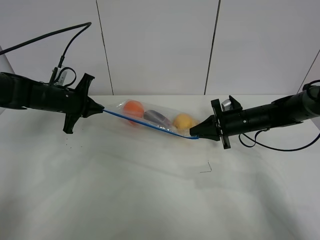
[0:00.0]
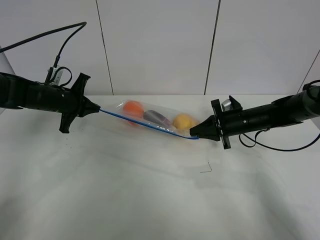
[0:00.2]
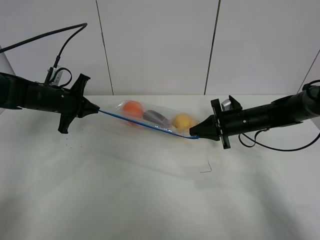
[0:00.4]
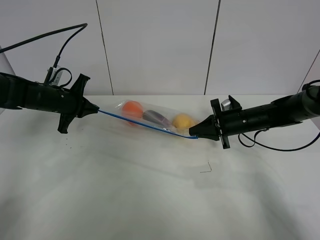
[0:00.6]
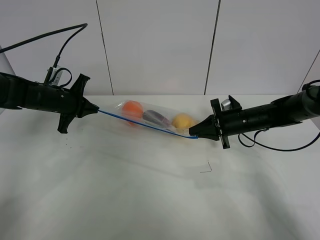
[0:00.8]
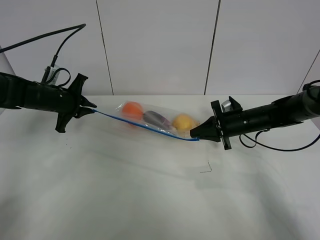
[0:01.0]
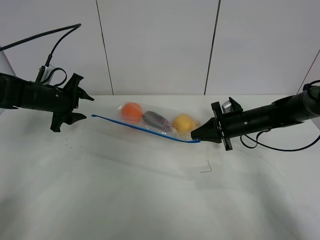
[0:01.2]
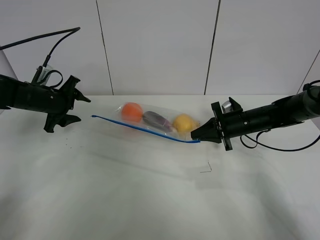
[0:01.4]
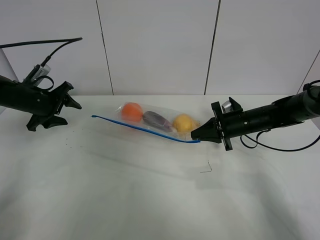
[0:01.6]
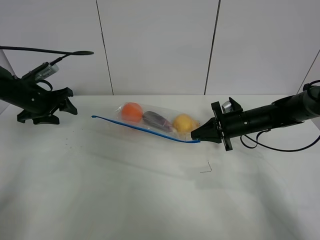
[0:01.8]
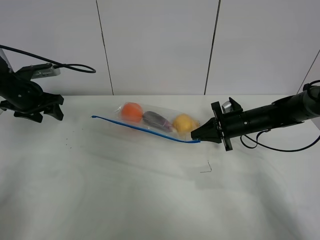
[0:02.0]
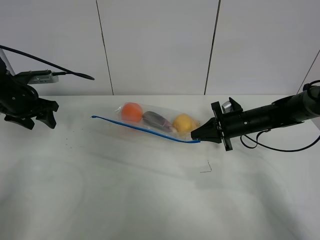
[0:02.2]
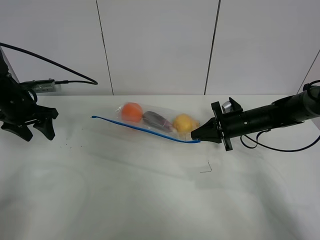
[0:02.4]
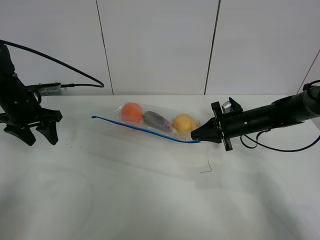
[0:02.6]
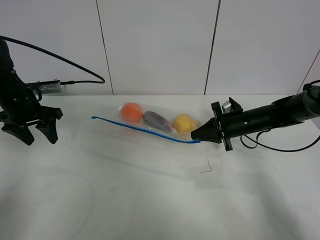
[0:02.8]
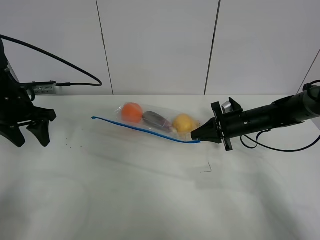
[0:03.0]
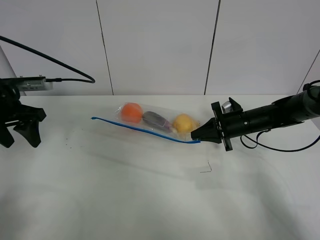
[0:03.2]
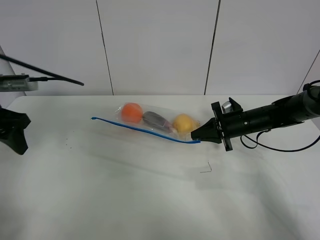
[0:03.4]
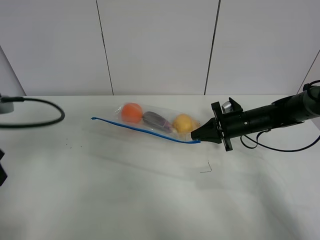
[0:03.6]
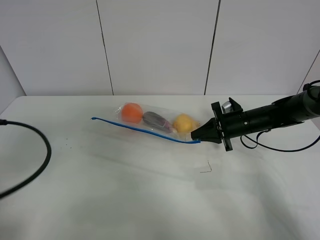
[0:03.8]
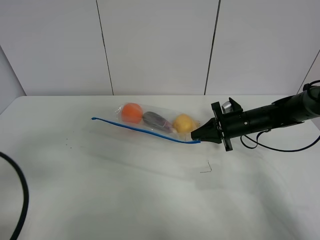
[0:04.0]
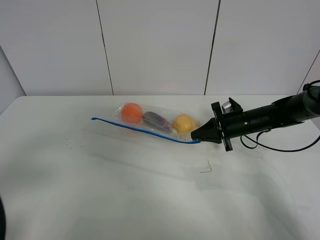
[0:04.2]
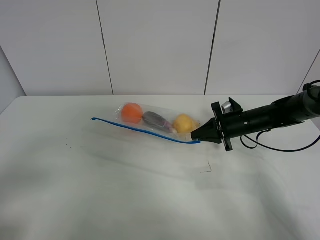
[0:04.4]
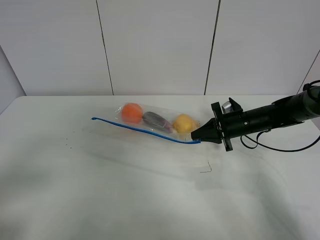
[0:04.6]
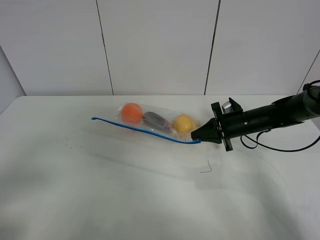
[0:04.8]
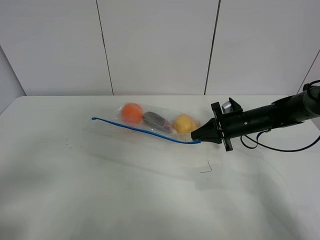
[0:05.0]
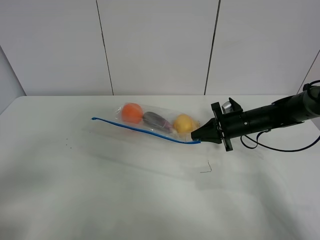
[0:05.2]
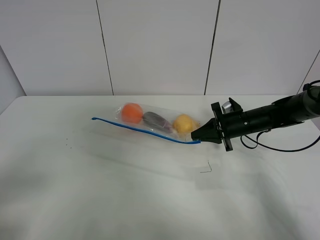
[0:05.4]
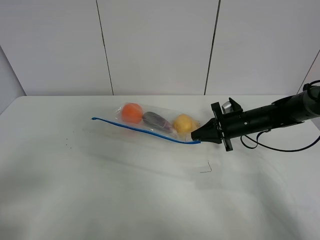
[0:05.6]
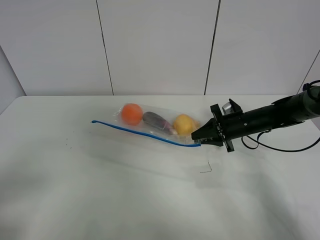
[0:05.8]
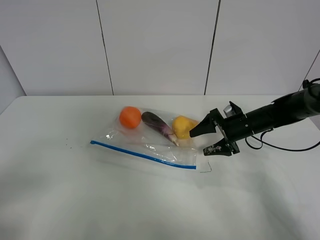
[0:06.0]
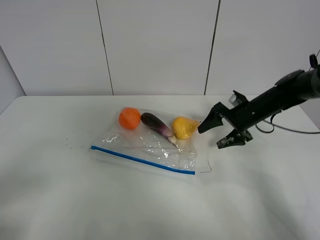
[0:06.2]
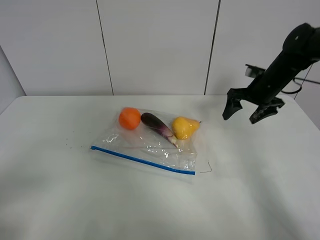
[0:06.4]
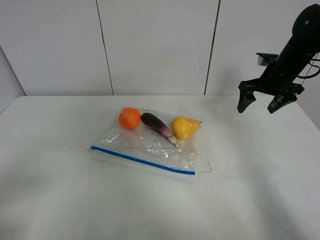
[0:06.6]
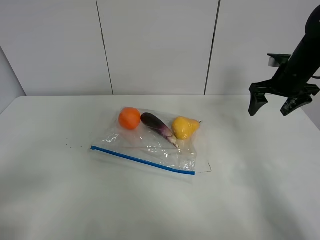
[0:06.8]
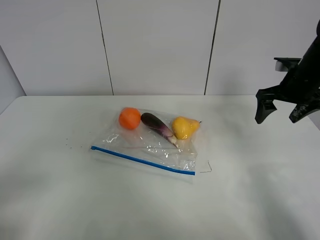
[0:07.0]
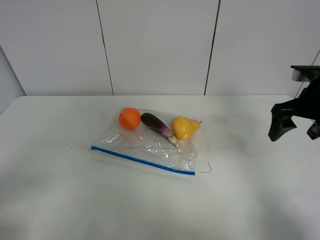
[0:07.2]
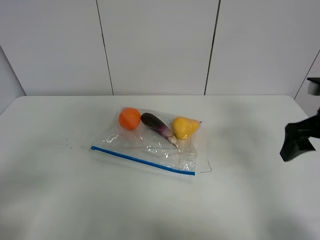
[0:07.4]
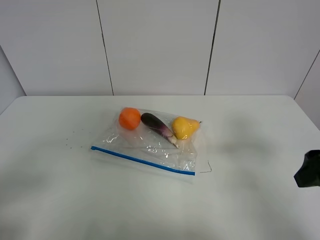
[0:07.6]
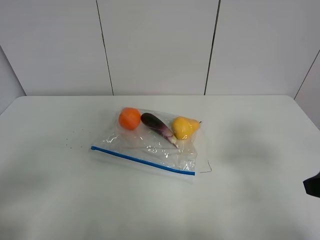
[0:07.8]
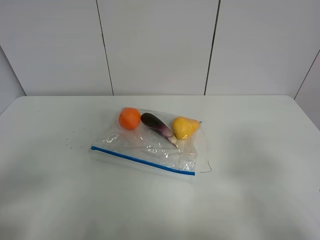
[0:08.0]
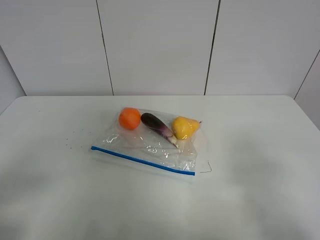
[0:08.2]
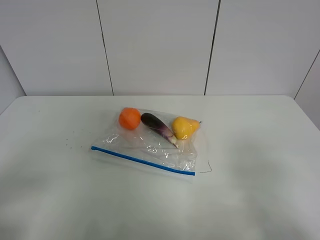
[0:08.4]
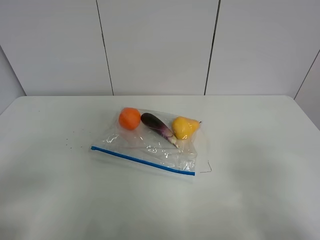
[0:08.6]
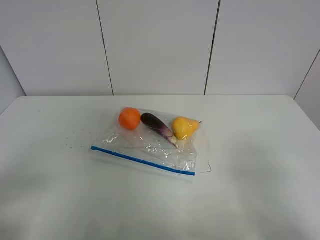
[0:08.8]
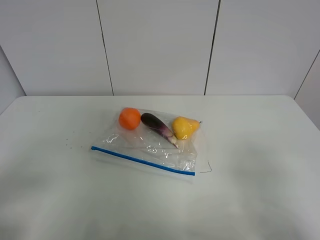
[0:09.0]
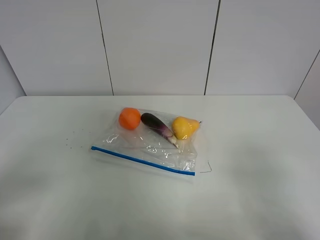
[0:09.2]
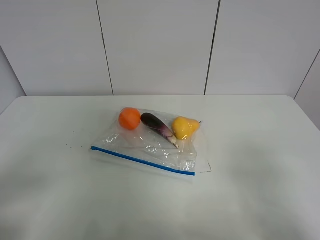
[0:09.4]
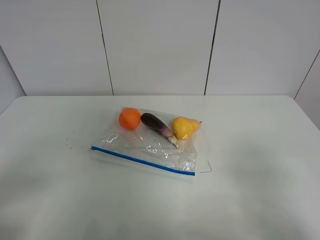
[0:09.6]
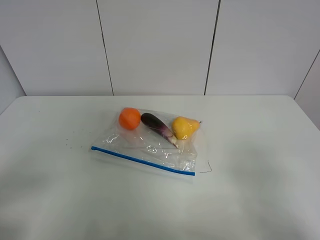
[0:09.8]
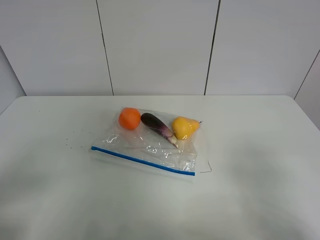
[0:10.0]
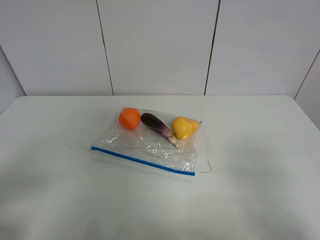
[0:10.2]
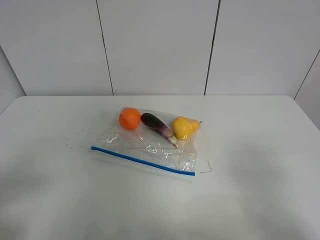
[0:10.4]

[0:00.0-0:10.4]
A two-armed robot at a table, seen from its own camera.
0:00.0 to 0:01.4: The left gripper opens up.
0:01.4 to 0:03.0: The left gripper goes roughly 5 cm upward.
0:03.0 to 0:04.4: The left gripper goes approximately 30 cm backward.
0:04.4 to 0:06.0: The right gripper opens up.
0:06.0 to 0:07.4: The right gripper goes roughly 25 cm upward, backward and to the right.
0:07.4 to 0:09.0: The right gripper is displaced backward by roughly 20 cm.
0:09.0 to 0:10.4: Neither gripper changes place.

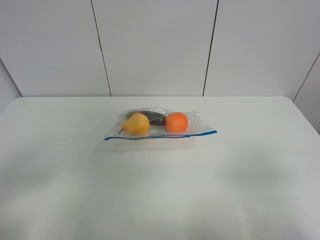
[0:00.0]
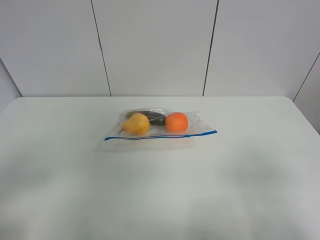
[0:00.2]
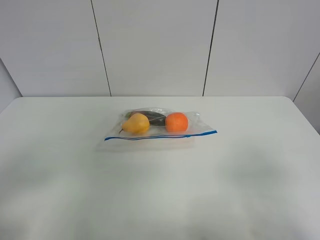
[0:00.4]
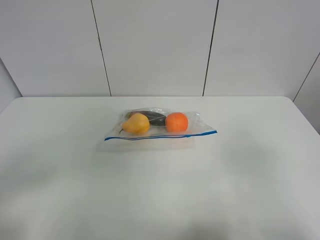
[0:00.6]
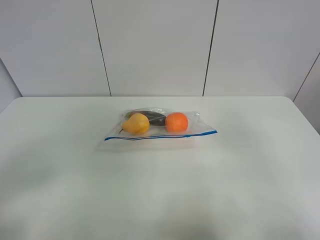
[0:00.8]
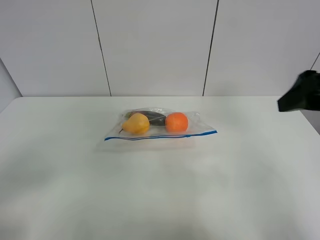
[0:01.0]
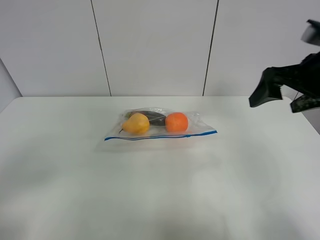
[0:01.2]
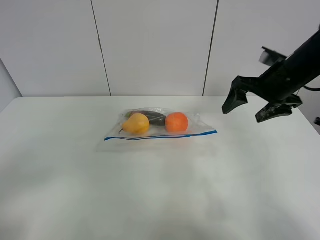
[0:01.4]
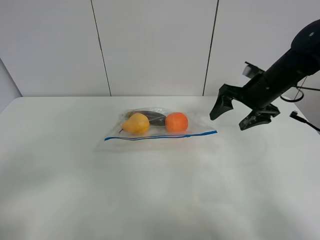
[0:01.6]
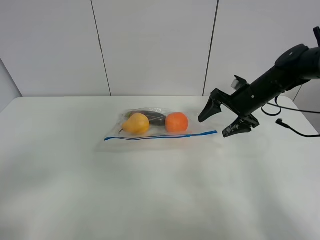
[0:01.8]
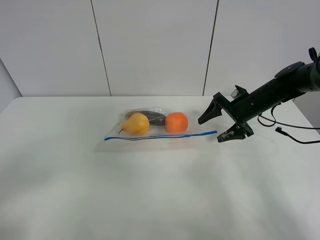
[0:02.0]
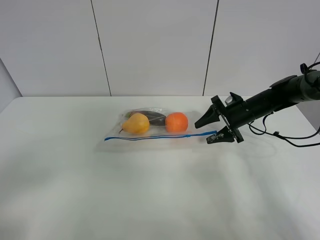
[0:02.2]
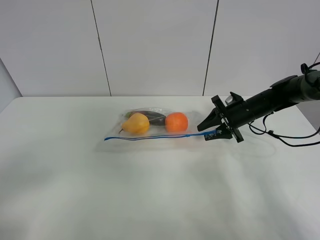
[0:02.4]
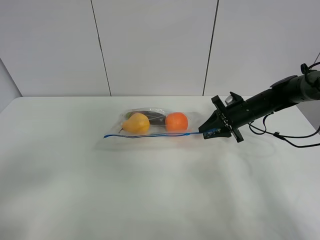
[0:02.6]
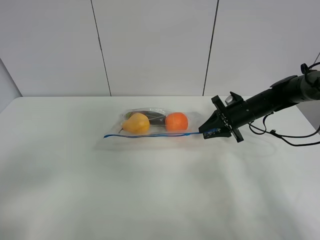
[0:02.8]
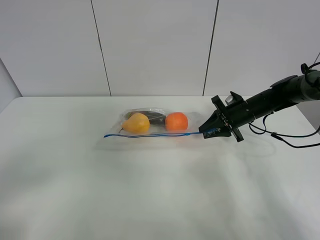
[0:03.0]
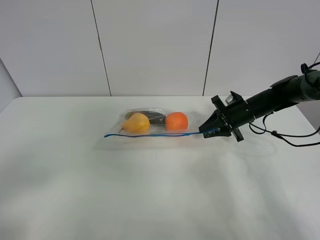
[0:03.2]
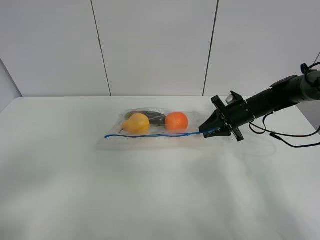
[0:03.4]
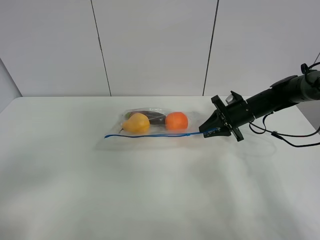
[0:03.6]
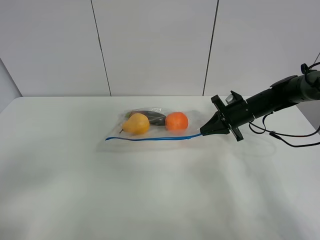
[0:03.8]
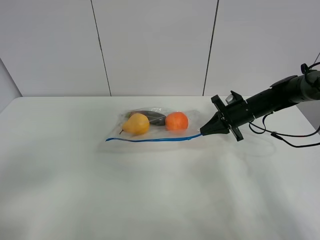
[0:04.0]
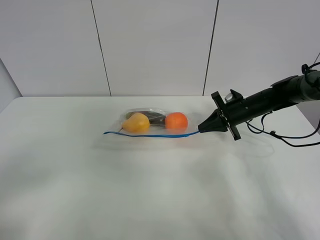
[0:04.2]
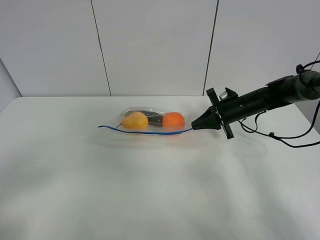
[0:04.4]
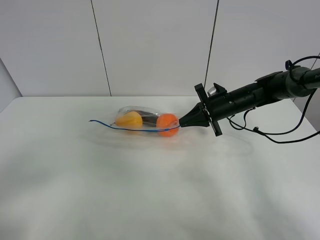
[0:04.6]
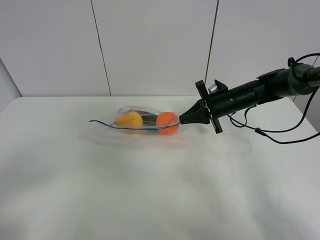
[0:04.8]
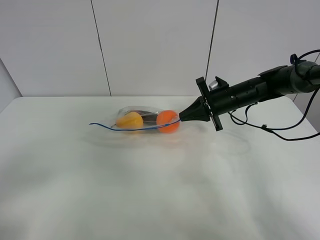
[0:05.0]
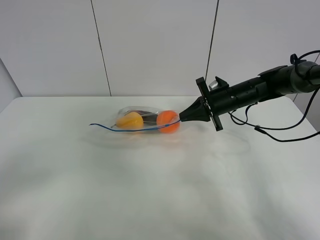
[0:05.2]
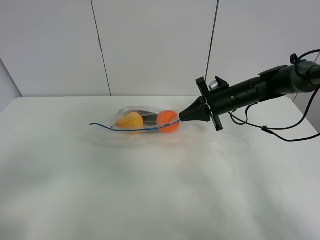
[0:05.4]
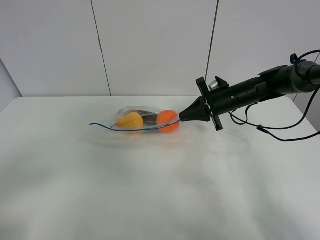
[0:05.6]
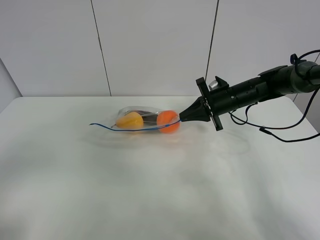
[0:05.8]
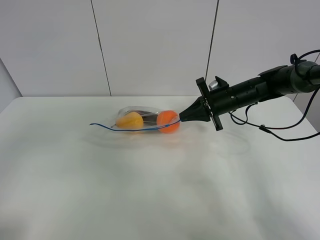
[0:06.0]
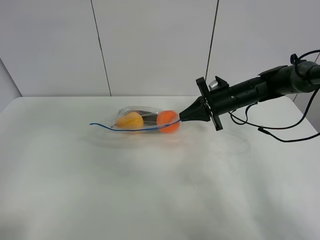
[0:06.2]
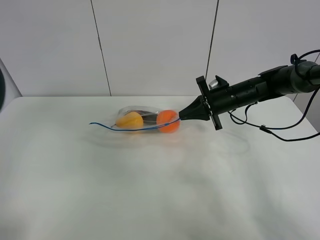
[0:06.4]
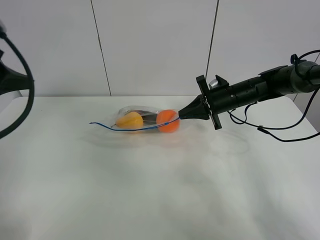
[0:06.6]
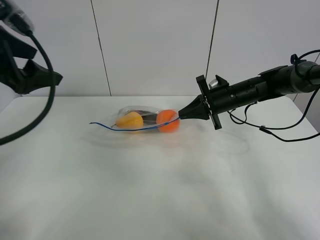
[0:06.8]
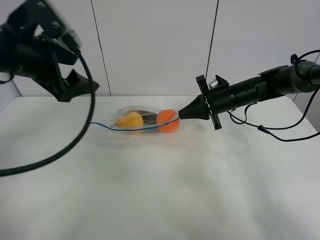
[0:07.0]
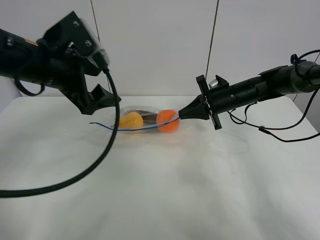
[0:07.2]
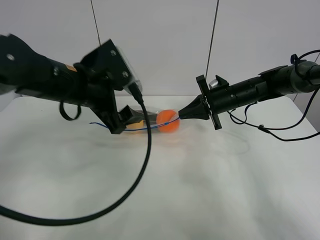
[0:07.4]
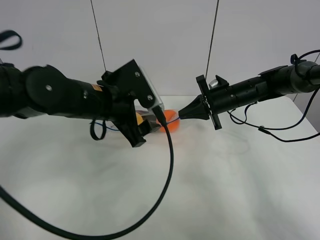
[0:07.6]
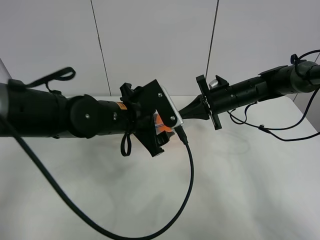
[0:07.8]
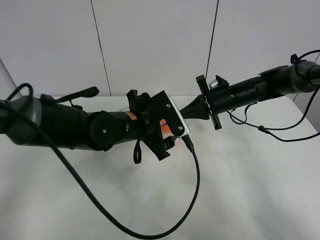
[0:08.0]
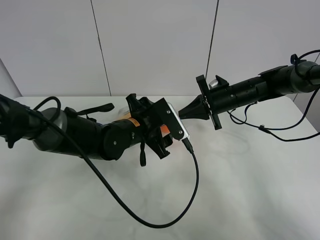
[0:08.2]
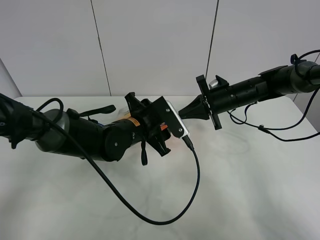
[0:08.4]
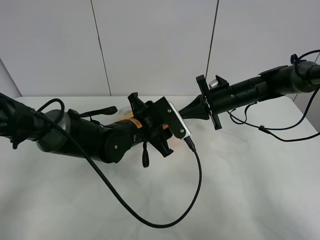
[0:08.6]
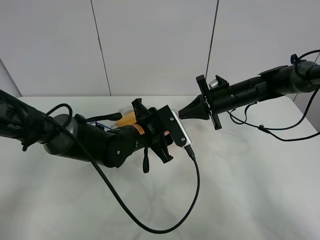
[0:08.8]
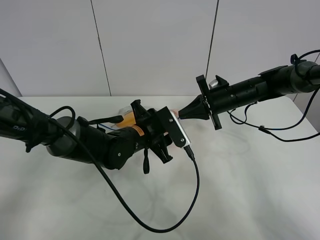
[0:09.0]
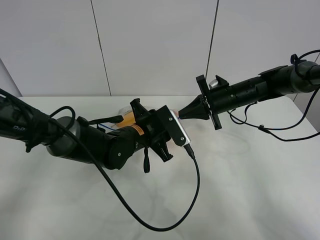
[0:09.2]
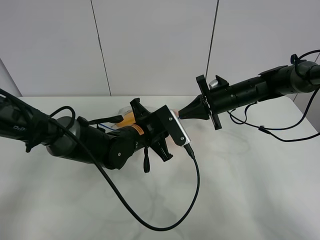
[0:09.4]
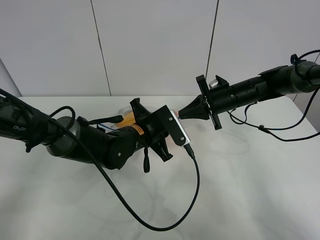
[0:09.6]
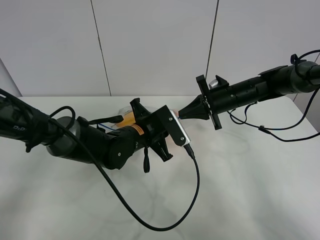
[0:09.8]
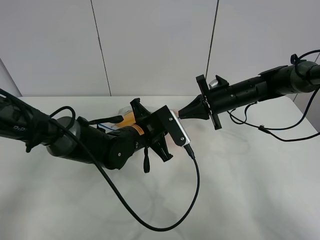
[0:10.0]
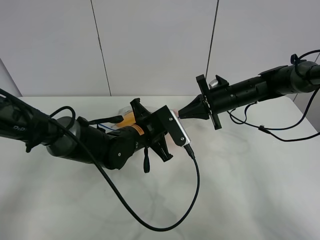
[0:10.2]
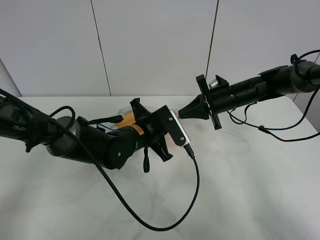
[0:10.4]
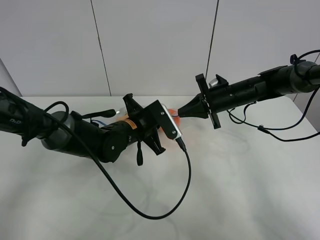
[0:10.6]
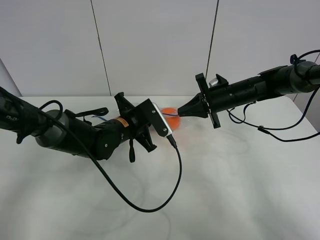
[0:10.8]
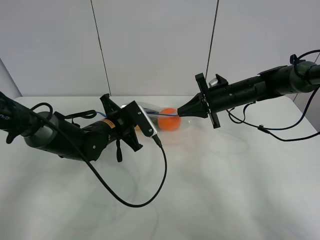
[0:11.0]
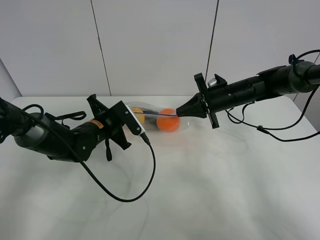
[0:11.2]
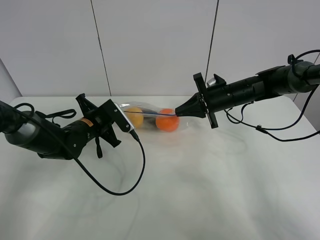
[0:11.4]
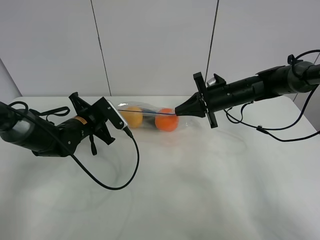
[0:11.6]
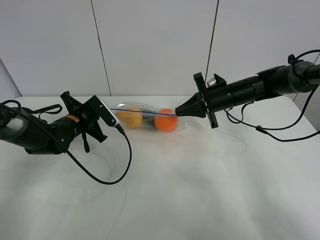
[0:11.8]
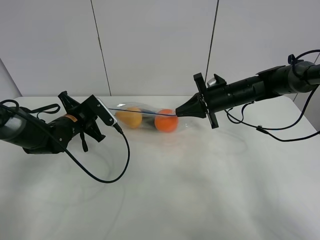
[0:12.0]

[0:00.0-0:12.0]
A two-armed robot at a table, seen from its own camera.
Step, 0:00.0 to 0:03.8: Grasp the fruit bag with right gripper.
Step, 0:04.0 to 0:04.8: Lift the fruit bag with your right gripper.
0:00.0 to 0:01.6: The right gripper is displaced forward by about 35 cm.
0:01.6 to 0:03.0: The right gripper travels downward by approximately 10 cm, and closes.
0:03.0 to 0:04.4: The grippers make only small movements.
0:04.4 to 0:06.0: The left gripper is displaced upward and forward by approximately 10 cm.
0:06.0 to 0:07.6: The left gripper heads forward, to the right and downward, covering roughly 30 cm.
0:07.6 to 0:09.0: The left gripper travels downward by approximately 10 cm, and closes up.
0:09.0 to 0:10.4: The left gripper closes up.
0:10.4 to 0:12.0: The left gripper goes some 15 cm to the left.
